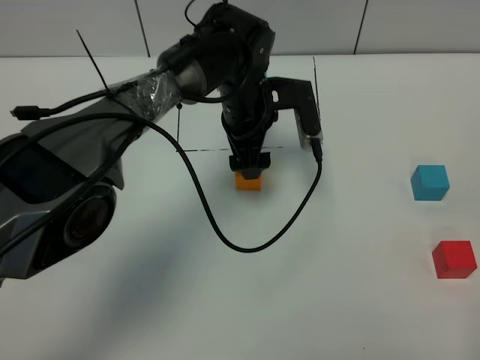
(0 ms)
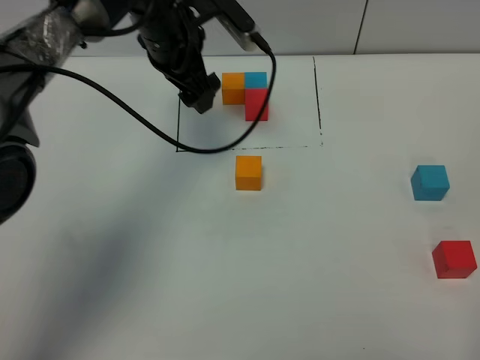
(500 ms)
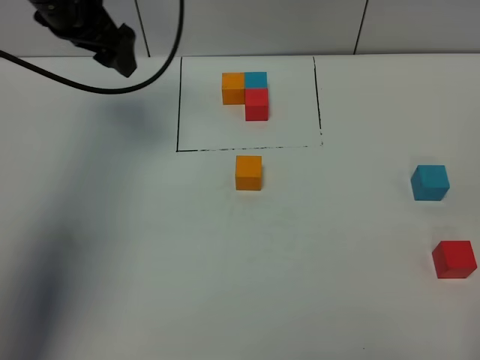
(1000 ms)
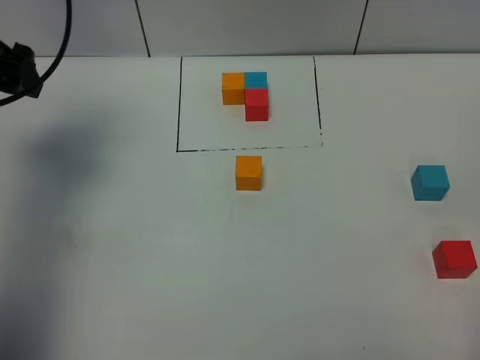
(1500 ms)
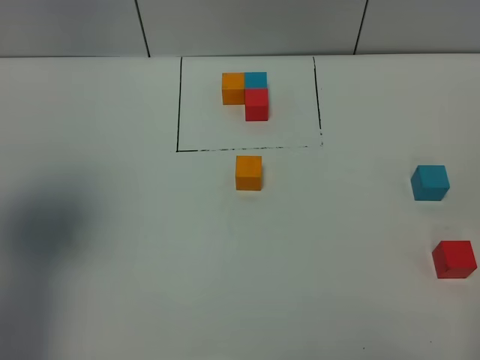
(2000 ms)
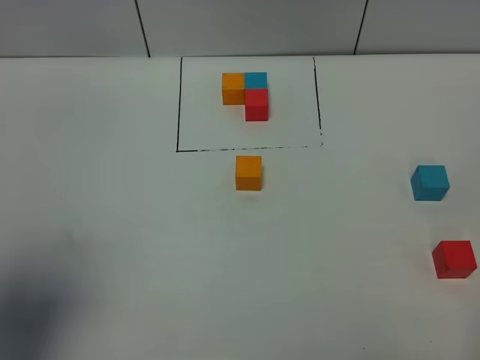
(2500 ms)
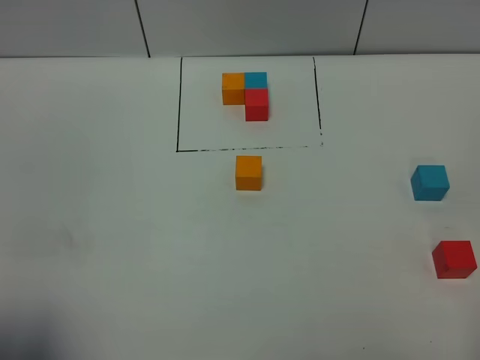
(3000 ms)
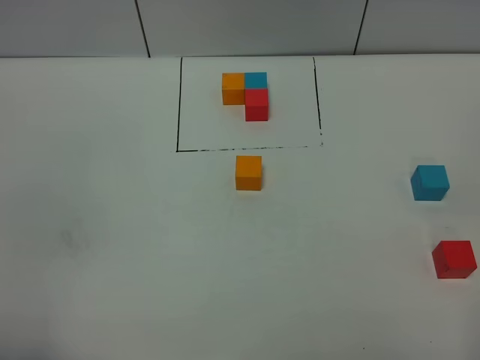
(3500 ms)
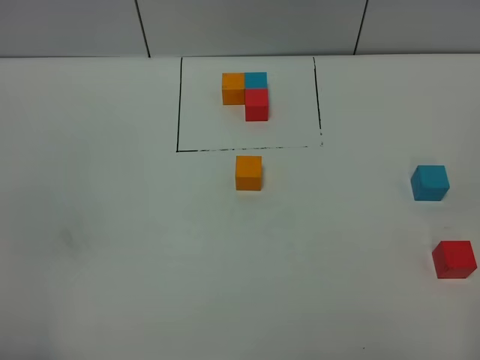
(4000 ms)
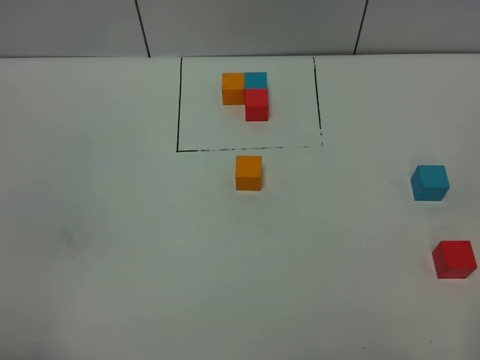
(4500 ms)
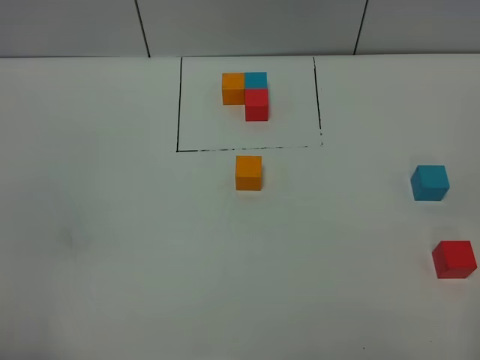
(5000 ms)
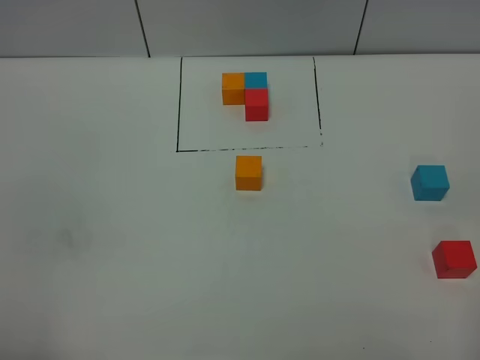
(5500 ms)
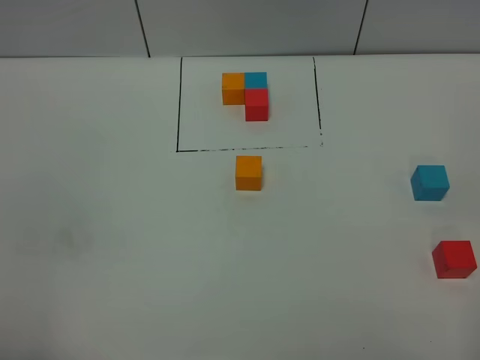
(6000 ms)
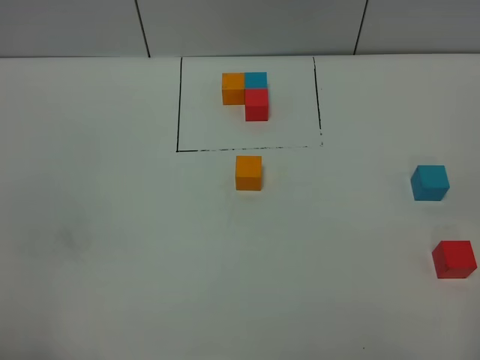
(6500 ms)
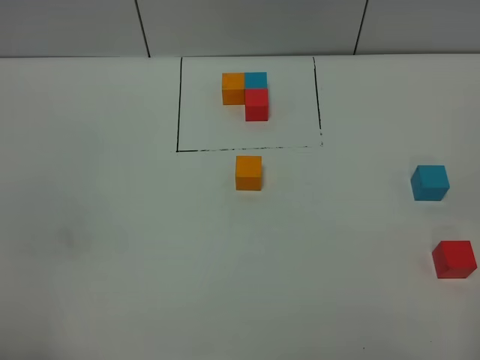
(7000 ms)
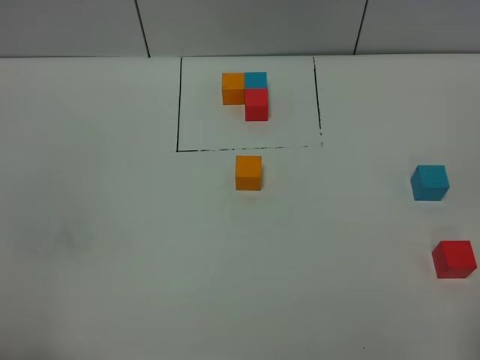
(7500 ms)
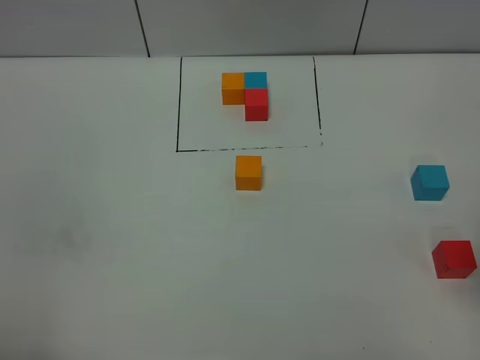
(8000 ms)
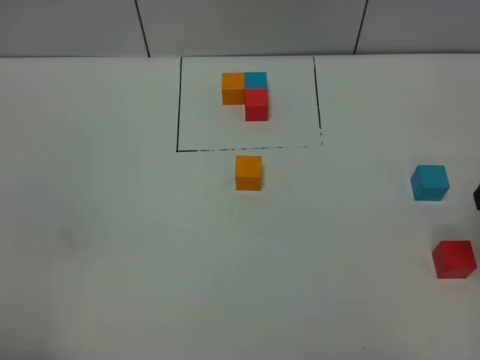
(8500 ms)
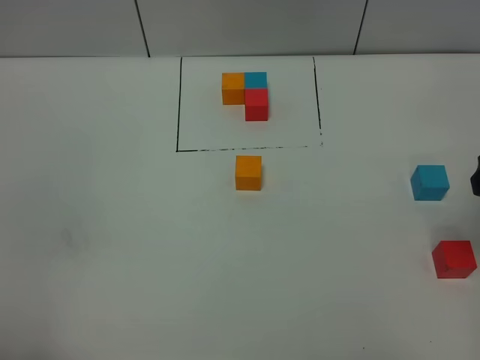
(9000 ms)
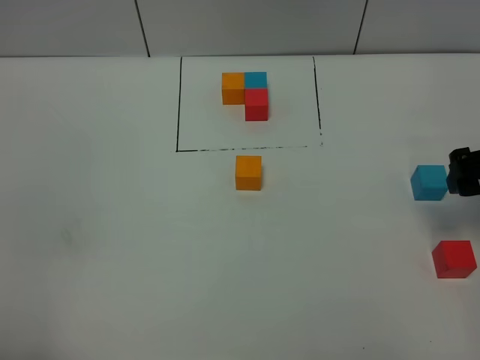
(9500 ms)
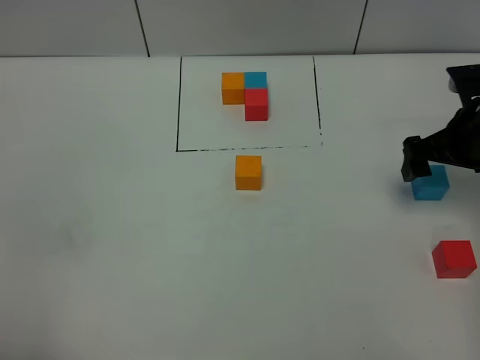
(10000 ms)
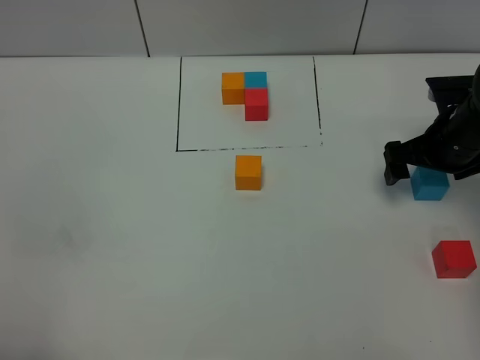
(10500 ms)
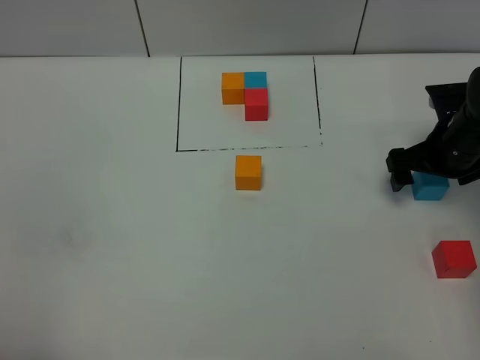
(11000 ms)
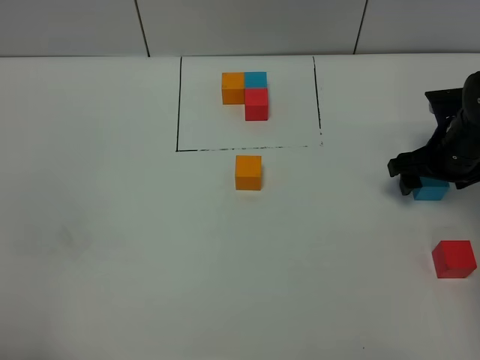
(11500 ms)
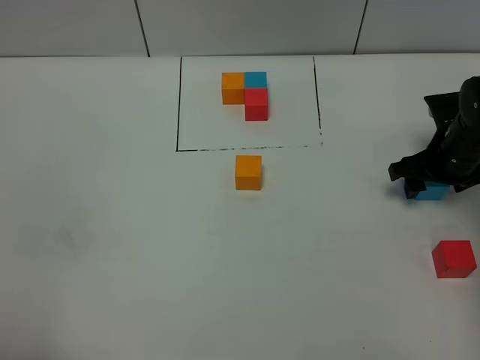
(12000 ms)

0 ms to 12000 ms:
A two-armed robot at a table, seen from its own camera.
Task of the whole recording: According to the building block template in front, assemble the scattered blocks together.
0 ms to 2000 ms: The left gripper goes about 40 cm to the left, backward and upward.
2000 ms to 4000 ms: The left gripper is displaced backward by approximately 20 cm.
4000 ms to 6000 ms: The two grippers keep their place.
8000 ms to 10000 ms: The right gripper travels forward and downward by approximately 20 cm.
10000 ms to 12000 ms: The right gripper shifts approximately 5 cm downward, and closes its fingers.

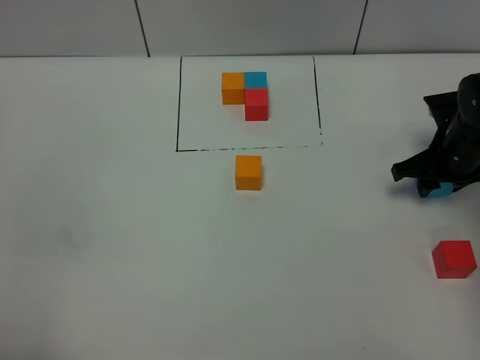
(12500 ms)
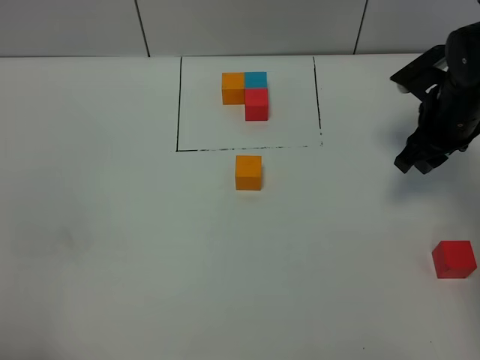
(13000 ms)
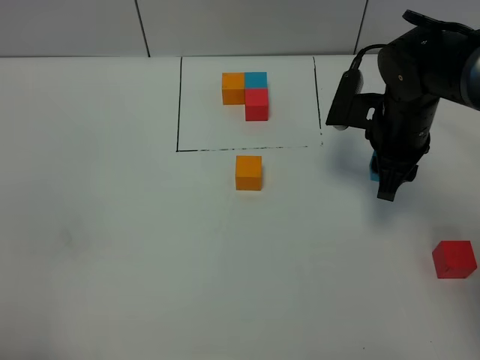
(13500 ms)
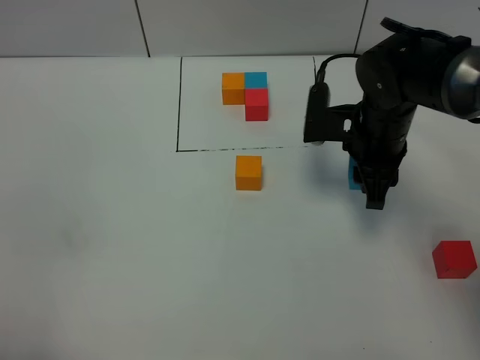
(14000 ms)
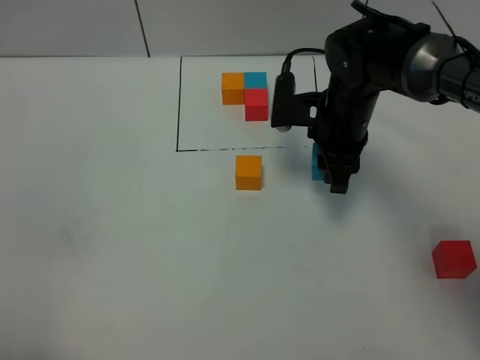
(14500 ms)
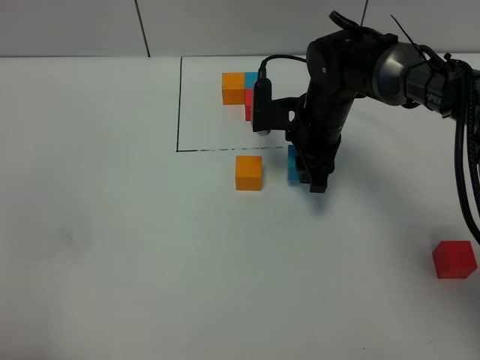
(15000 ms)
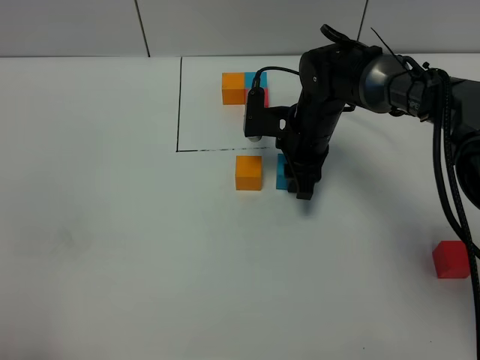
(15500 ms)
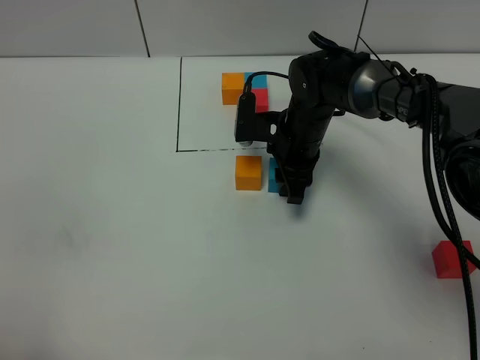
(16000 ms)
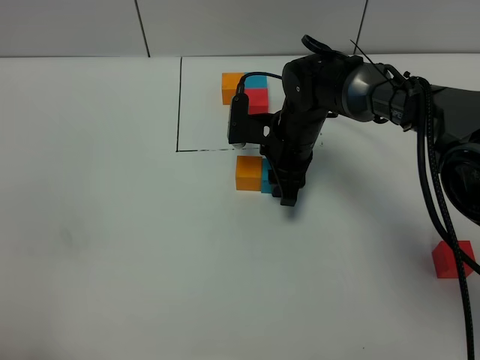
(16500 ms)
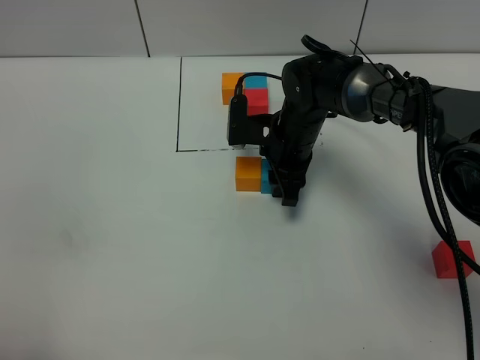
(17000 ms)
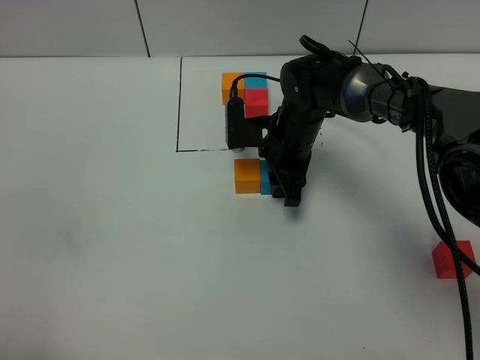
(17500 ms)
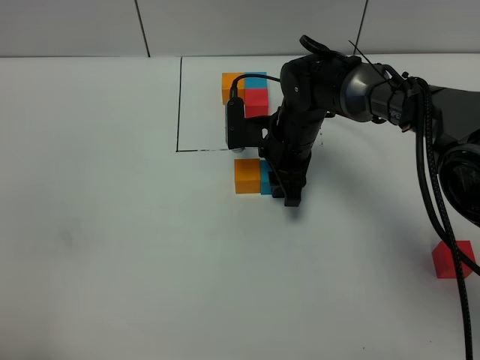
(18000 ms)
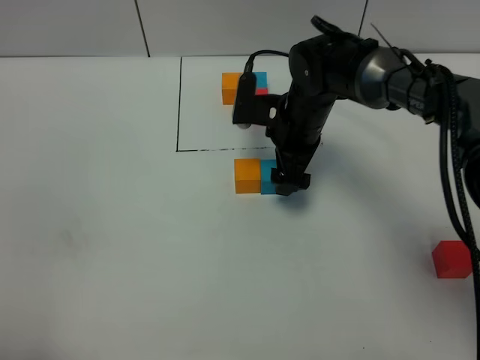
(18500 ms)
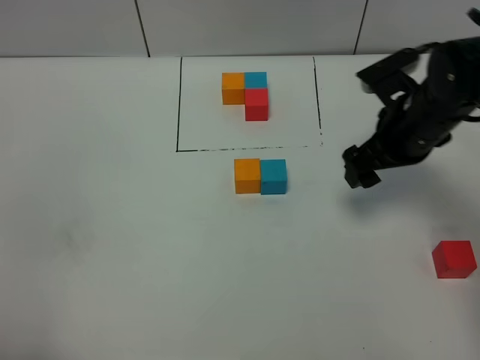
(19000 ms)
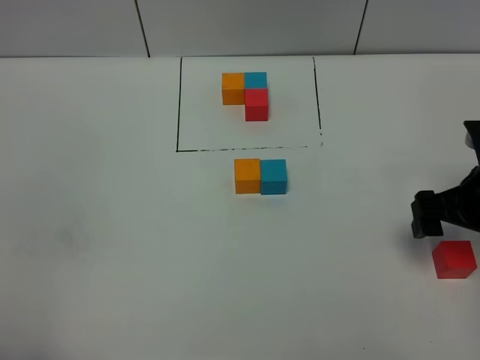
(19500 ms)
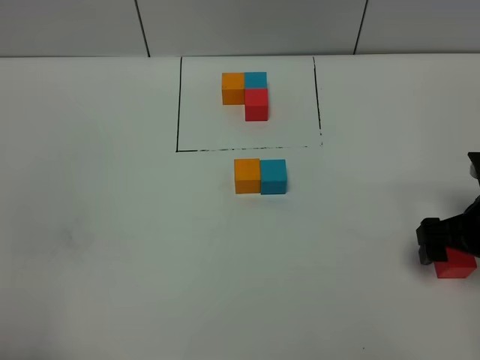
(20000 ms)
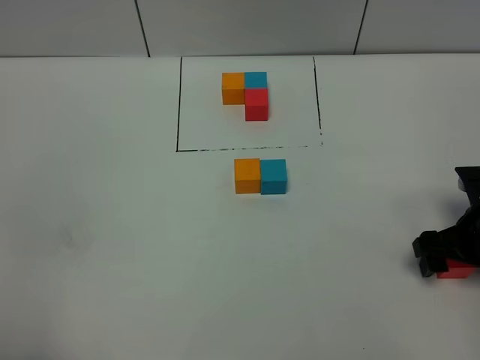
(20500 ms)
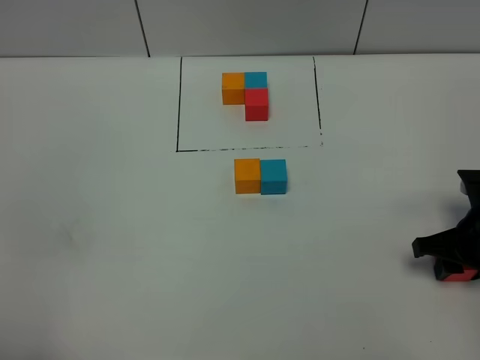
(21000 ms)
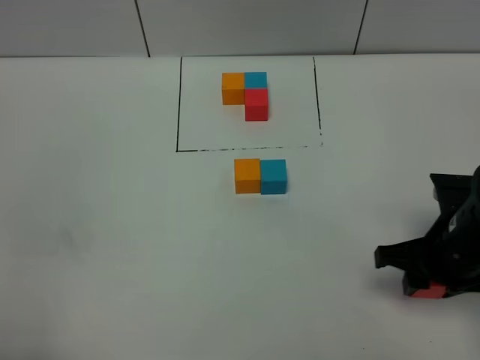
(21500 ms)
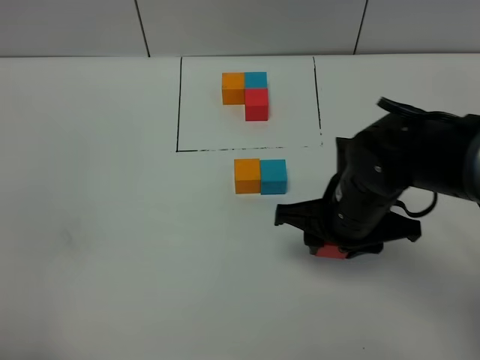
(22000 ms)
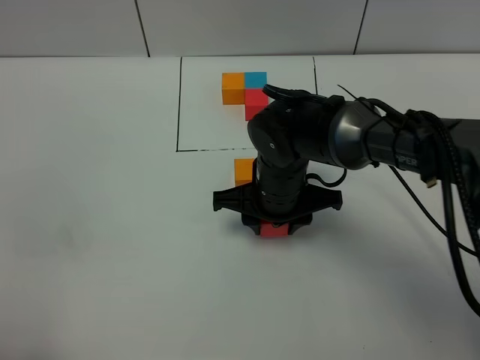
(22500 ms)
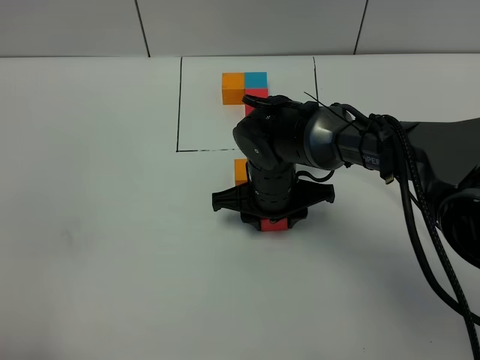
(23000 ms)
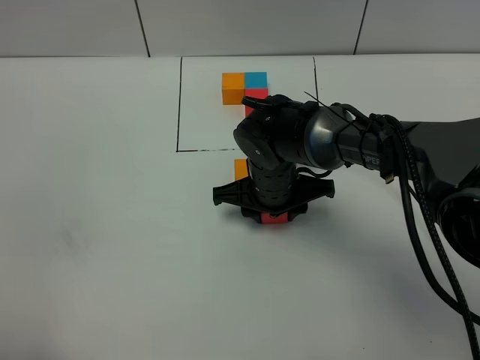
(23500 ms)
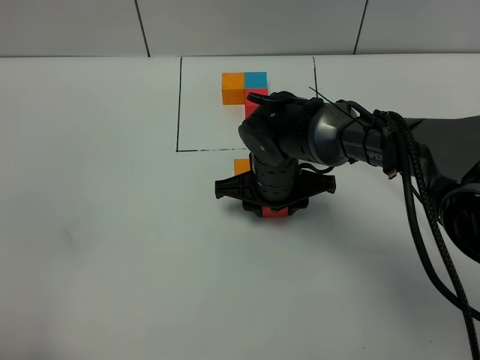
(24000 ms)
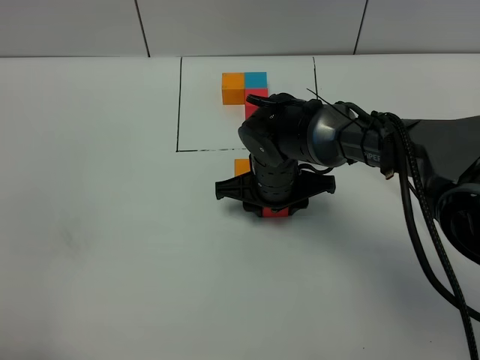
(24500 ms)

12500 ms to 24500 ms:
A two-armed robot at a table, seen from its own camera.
Task of the whole recording: According to the building block template in front, assemble the scattered blocks together.
Step, 12500 ms to 17500 ms: Put the blue build block on the right of the orange build block.
12500 ms to 14500 ms: The right gripper moves to the left, approximately 15 cm.
14500 ms to 16500 ms: The right gripper travels downward and to the left by about 10 cm.
16500 ms to 18500 ms: The right gripper opens up.
18500 ms to 20500 ms: The right gripper heads to the right and backward, covering roughly 25 cm.
20500 ms to 22500 ms: The right gripper goes roughly 25 cm to the left, and closes up.
22500 ms to 24500 ms: There are only small adjustments of the grippers.

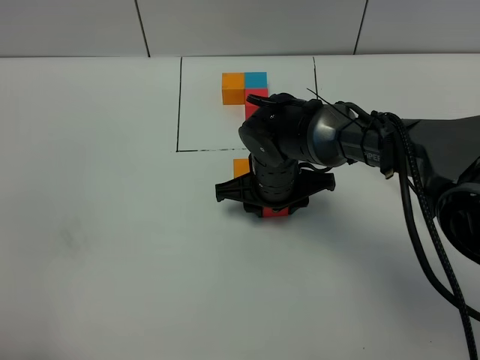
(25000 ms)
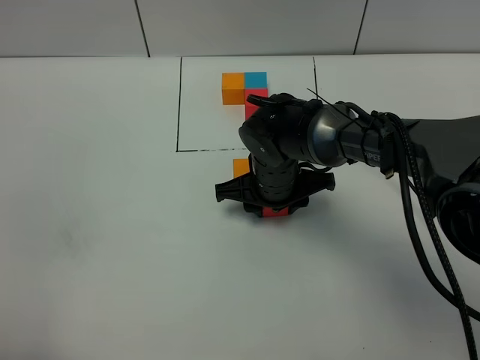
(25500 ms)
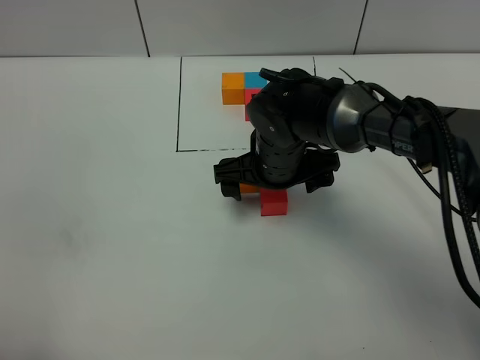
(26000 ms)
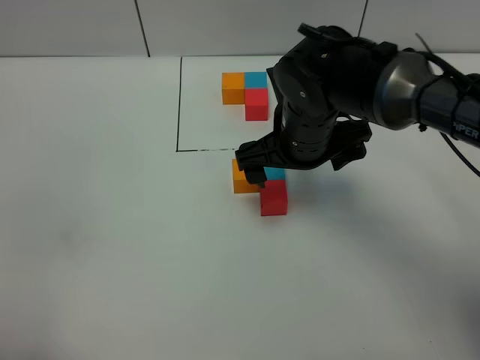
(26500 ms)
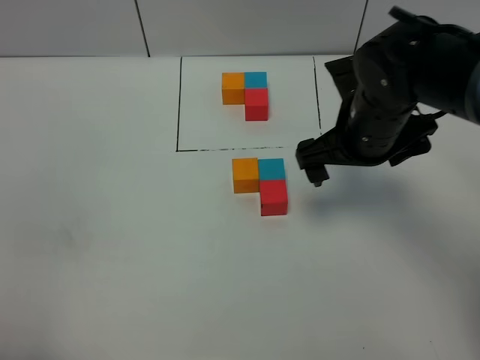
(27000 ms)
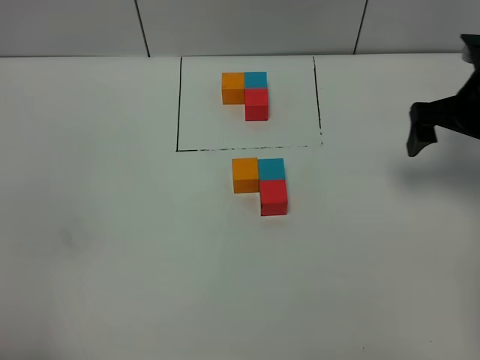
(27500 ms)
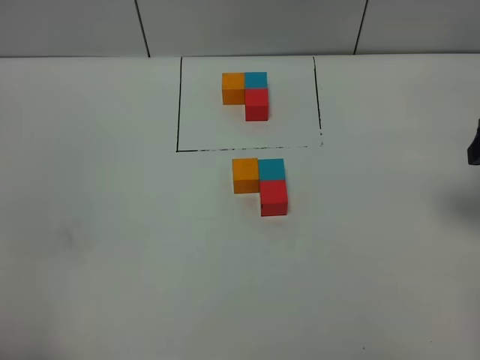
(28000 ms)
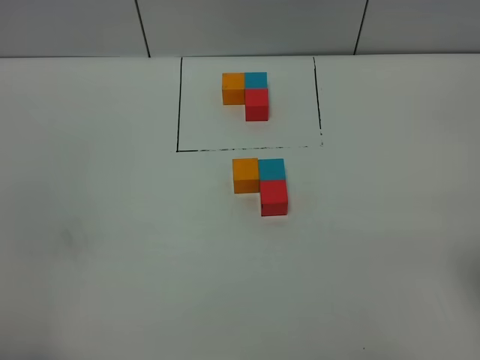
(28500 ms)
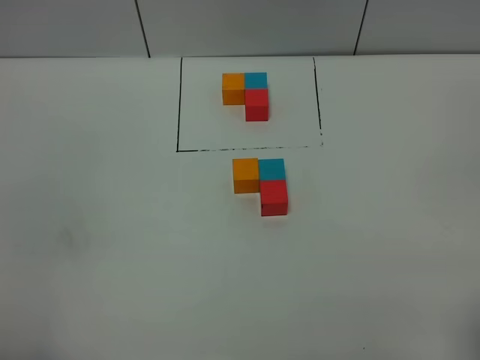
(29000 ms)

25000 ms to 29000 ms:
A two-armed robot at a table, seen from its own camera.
Task of the whole recording: According to the building block template in front, assemble the scattered blocks together.
25000 ms to 27000 ms: The right gripper travels upward and to the right by roughly 15 cm, and opens.
27000 ms to 29000 ms: The right gripper is displaced backward and to the right by about 30 cm.
